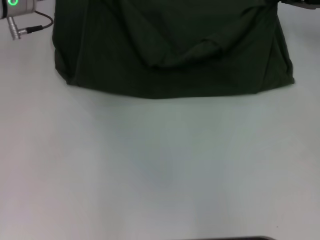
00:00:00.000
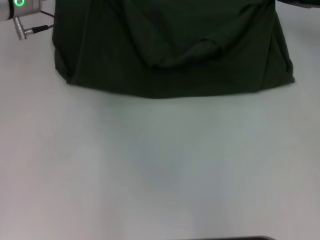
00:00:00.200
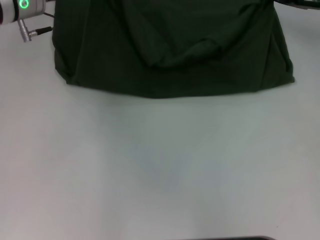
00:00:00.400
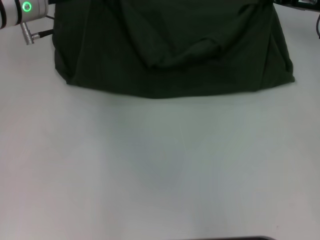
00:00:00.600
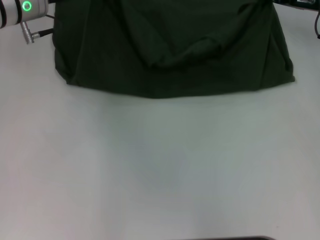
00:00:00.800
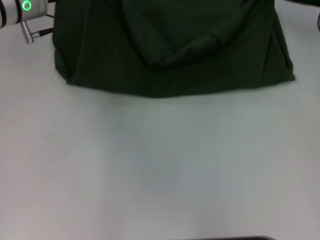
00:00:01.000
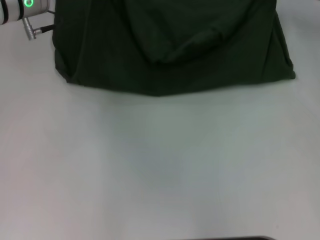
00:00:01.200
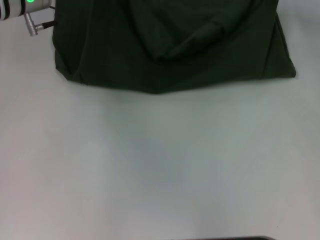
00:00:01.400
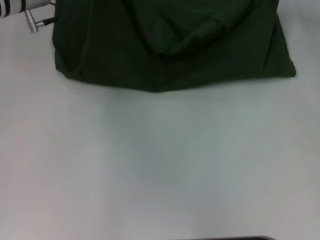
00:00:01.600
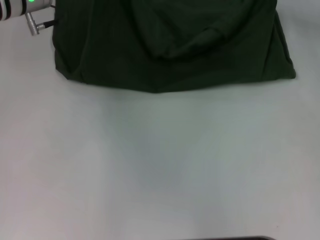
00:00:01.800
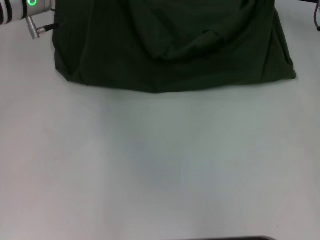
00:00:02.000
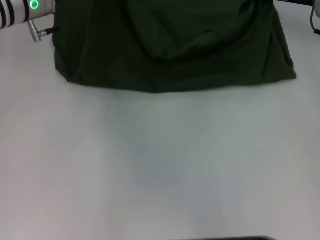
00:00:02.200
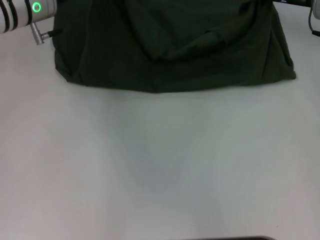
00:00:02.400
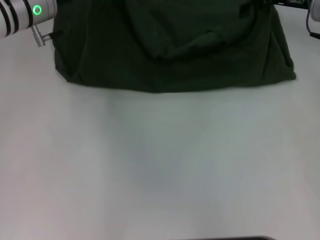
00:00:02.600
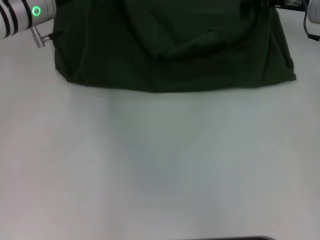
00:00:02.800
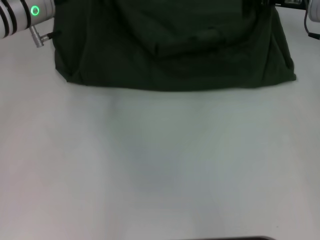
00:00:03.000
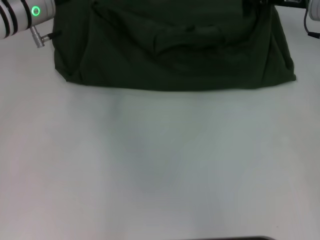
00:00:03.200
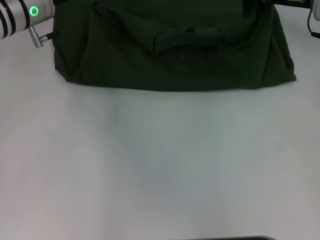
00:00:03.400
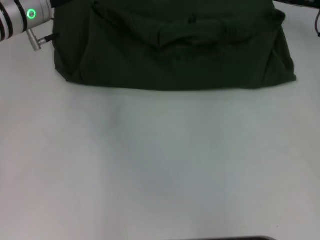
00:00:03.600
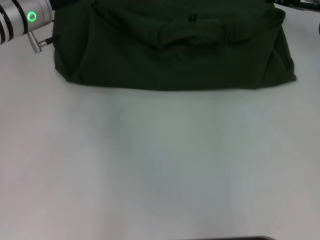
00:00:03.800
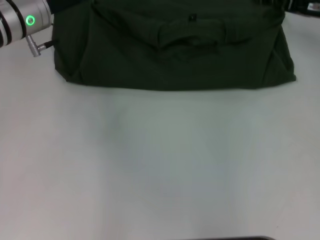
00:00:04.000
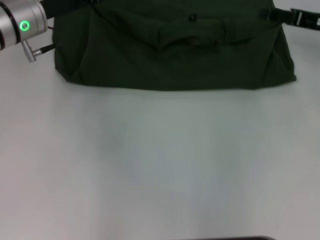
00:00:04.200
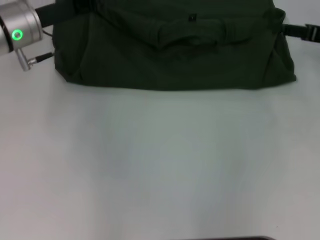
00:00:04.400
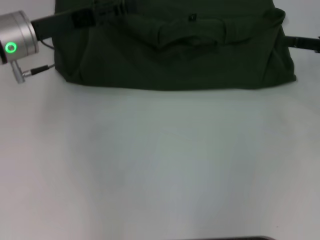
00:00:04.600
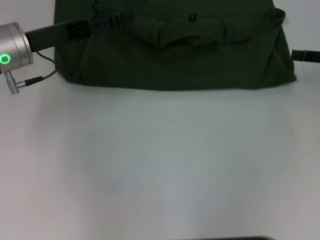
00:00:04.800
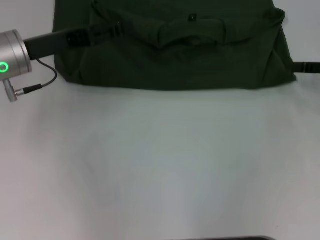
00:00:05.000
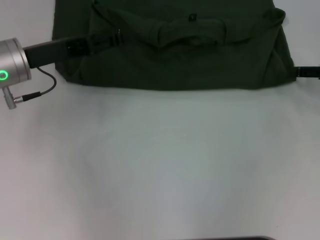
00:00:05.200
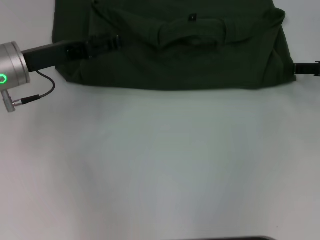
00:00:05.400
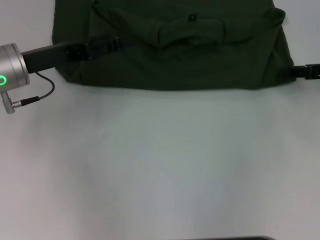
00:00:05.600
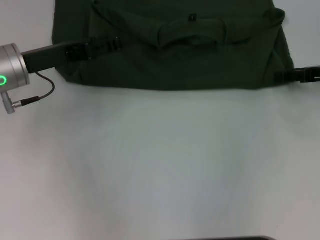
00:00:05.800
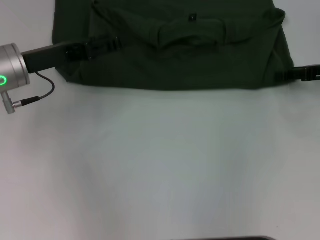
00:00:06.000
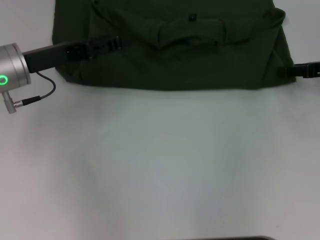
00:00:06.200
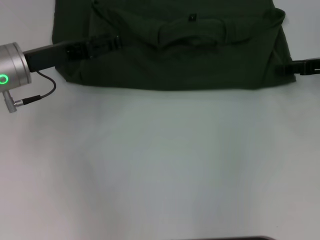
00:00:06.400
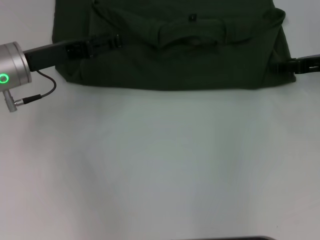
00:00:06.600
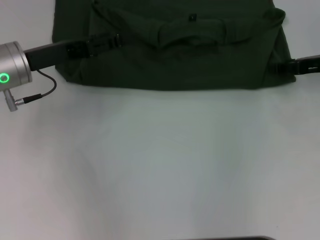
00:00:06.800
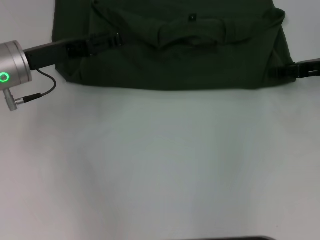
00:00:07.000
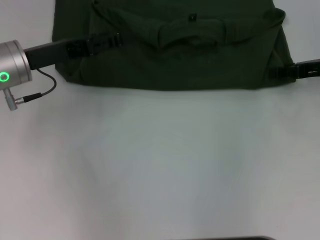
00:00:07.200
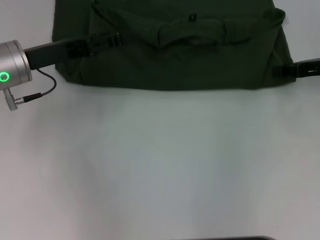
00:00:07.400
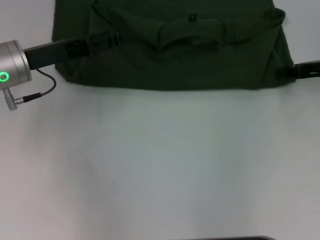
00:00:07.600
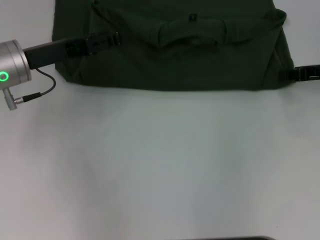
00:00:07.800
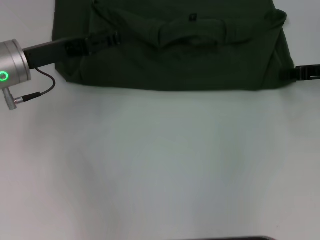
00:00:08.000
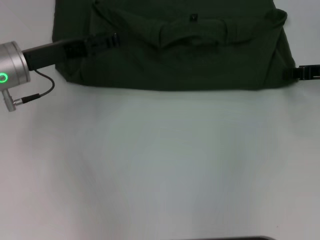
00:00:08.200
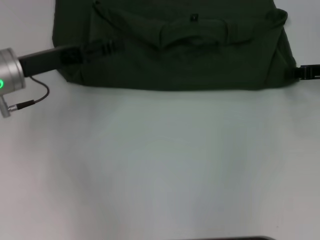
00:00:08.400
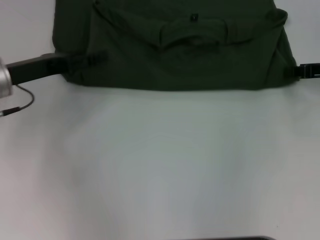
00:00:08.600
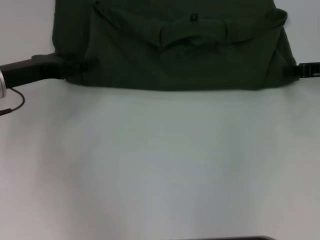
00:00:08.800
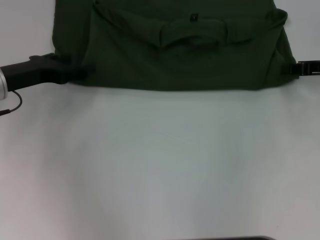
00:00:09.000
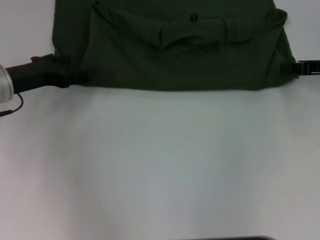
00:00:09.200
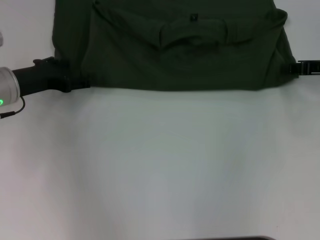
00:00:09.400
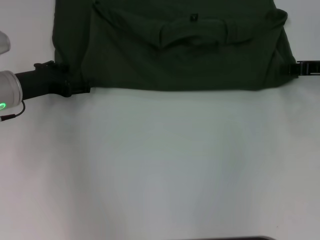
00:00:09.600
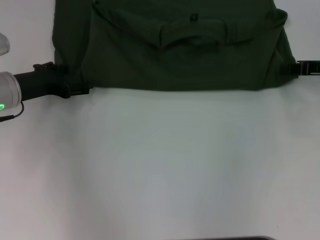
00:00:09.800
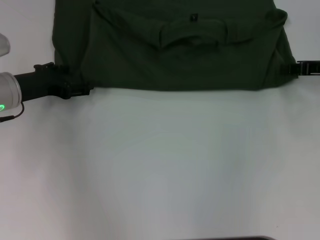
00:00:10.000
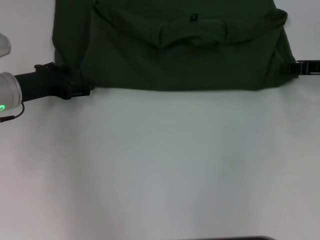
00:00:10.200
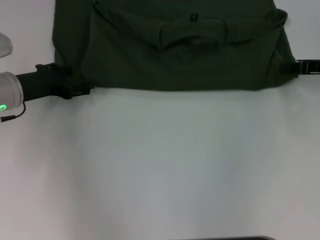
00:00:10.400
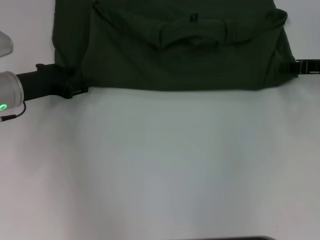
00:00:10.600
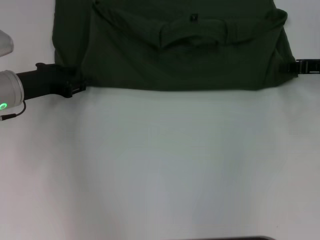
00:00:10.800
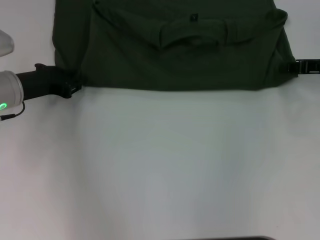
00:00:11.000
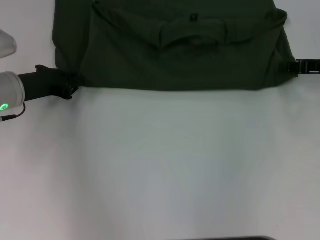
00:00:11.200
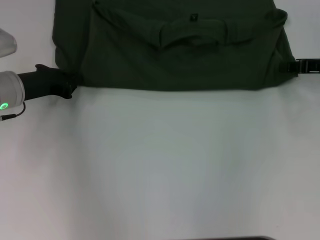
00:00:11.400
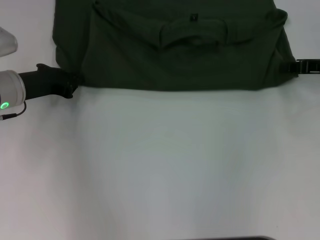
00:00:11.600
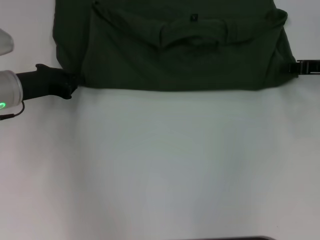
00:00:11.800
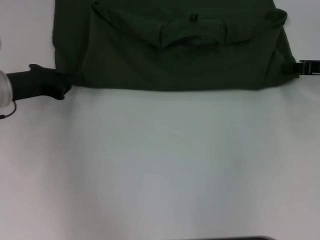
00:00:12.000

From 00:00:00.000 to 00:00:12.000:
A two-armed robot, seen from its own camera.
Step, from 00:00:00.000 to 00:00:04.600: Fold the clothes with your left hand.
Step, from 00:00:00.000 to 00:00:04.600: Fold the clothes with your right hand.
From 00:00:00.000 to 00:00:01.600: The grippers move only a little.
From 00:00:01.600 to 00:00:03.000: The left gripper opens.
From 00:00:03.000 to 00:00:04.400: The right gripper moves backward and to the right, about 10 cm, and opens its fingers. Meanwhile the left gripper opens up.
From 00:00:04.400 to 00:00:06.000: The left gripper changes place by roughly 5 cm.
From 00:00:06.000 to 00:00:07.600: There are only small adjustments of the grippers.
From 00:00:09.000 to 00:00:10.400: There are only small adjustments of the grippers.
From 00:00:10.400 to 00:00:12.000: The left gripper closes.

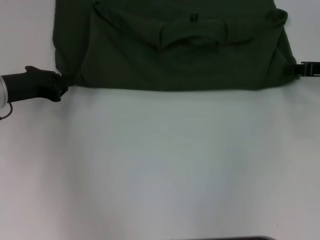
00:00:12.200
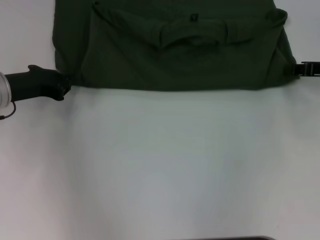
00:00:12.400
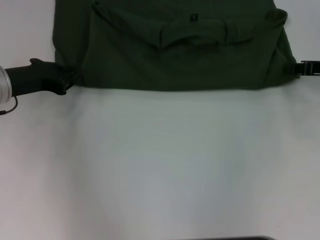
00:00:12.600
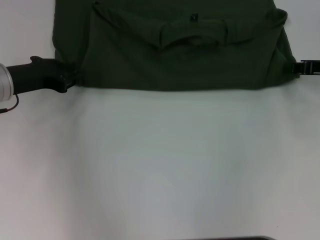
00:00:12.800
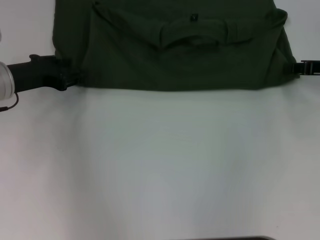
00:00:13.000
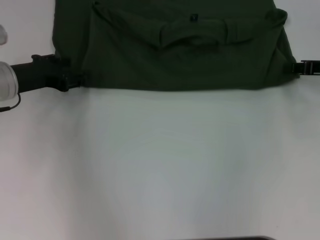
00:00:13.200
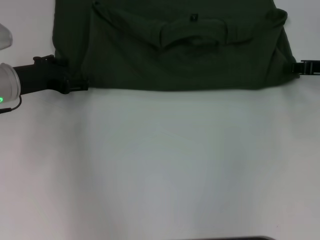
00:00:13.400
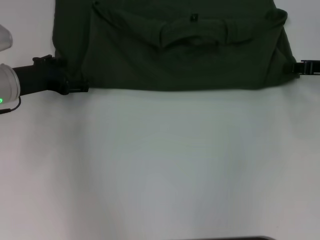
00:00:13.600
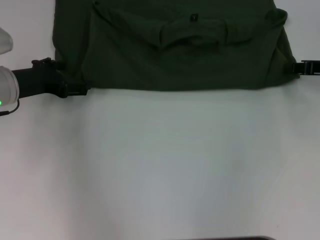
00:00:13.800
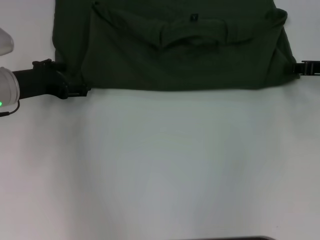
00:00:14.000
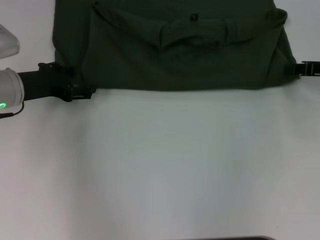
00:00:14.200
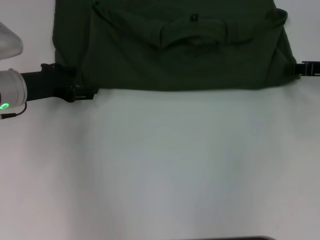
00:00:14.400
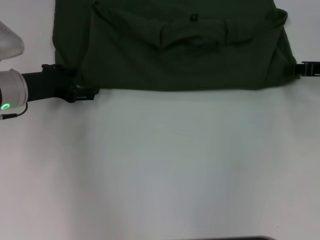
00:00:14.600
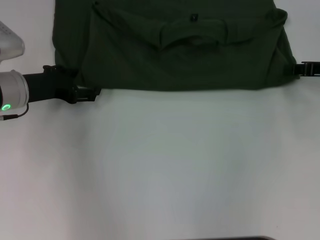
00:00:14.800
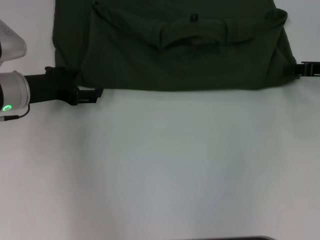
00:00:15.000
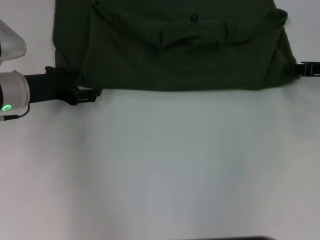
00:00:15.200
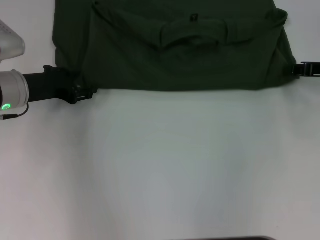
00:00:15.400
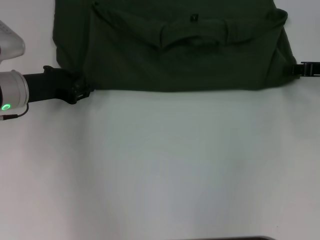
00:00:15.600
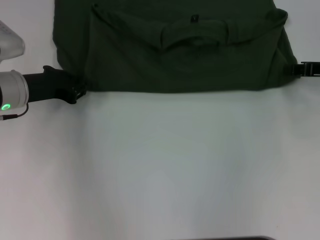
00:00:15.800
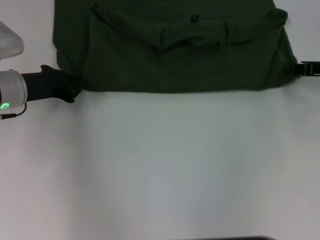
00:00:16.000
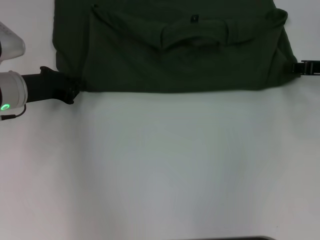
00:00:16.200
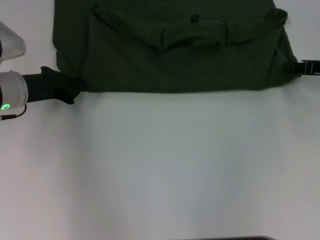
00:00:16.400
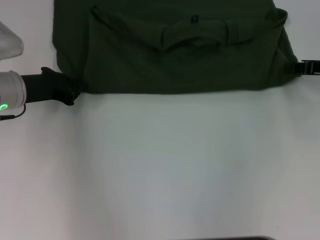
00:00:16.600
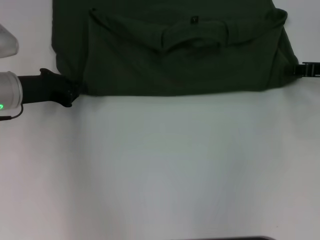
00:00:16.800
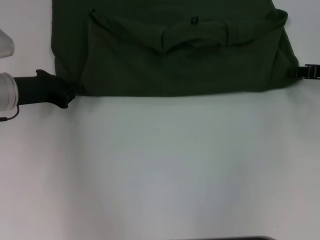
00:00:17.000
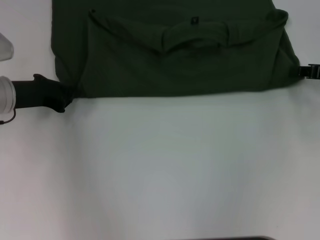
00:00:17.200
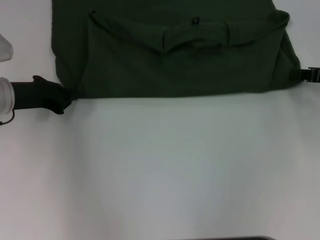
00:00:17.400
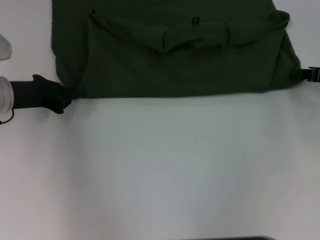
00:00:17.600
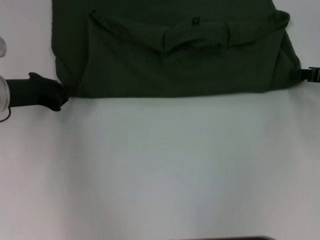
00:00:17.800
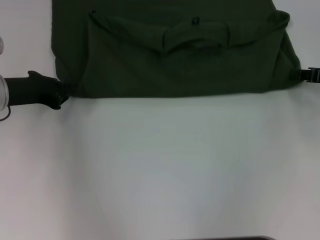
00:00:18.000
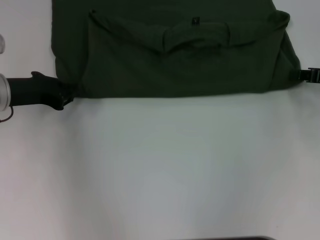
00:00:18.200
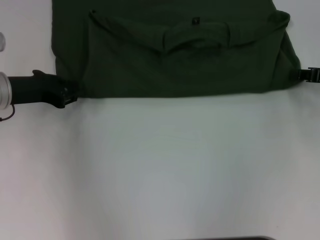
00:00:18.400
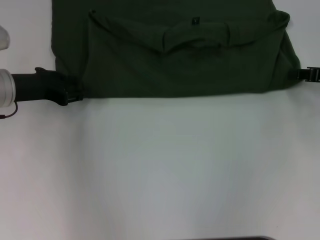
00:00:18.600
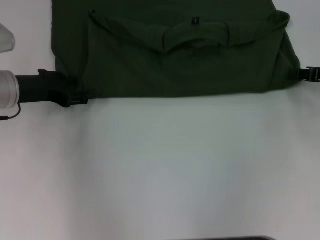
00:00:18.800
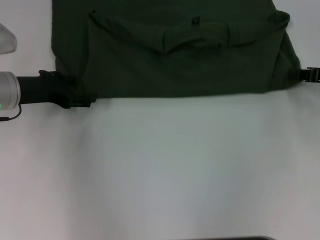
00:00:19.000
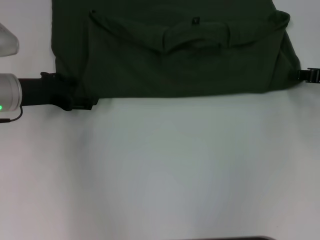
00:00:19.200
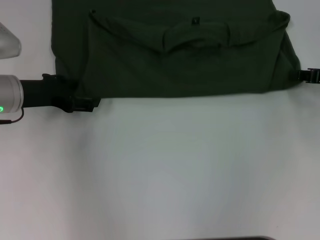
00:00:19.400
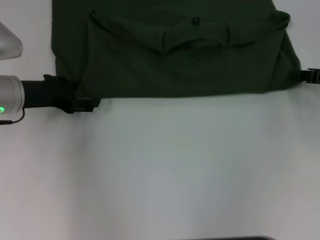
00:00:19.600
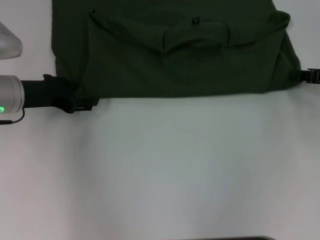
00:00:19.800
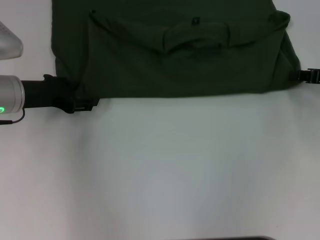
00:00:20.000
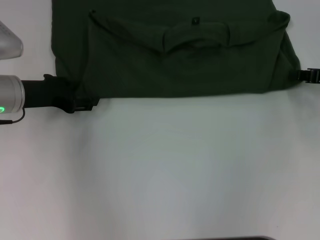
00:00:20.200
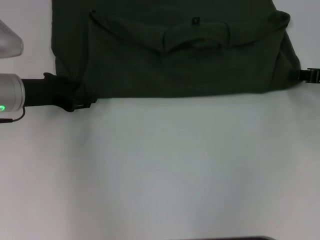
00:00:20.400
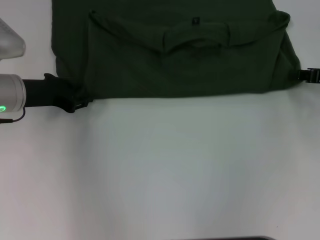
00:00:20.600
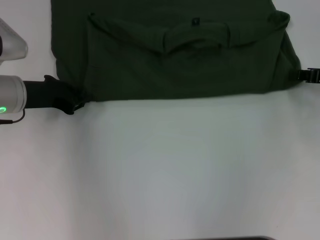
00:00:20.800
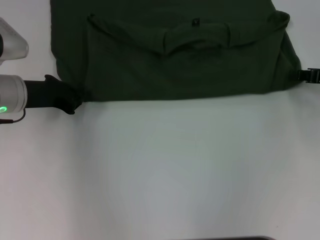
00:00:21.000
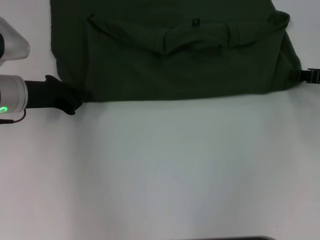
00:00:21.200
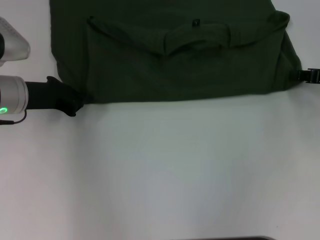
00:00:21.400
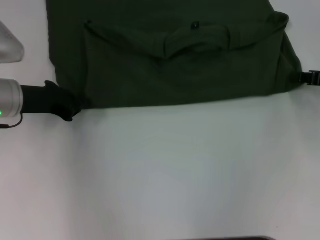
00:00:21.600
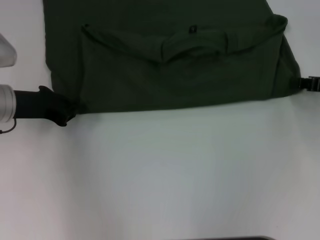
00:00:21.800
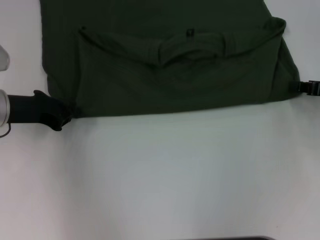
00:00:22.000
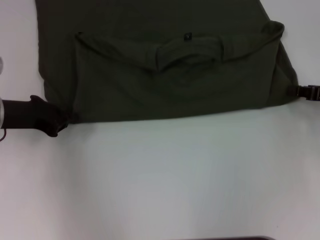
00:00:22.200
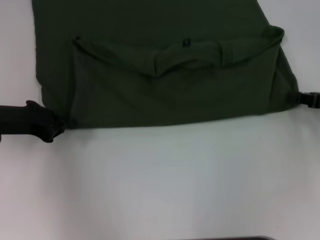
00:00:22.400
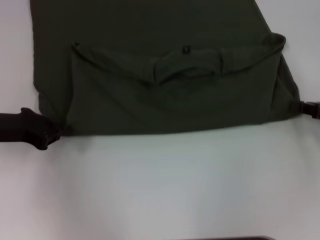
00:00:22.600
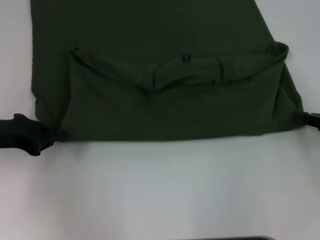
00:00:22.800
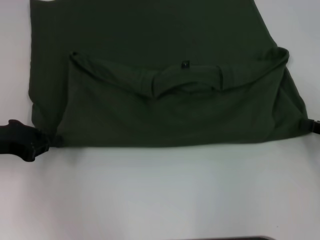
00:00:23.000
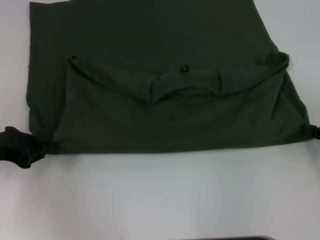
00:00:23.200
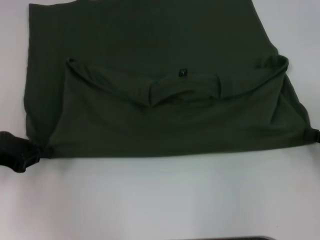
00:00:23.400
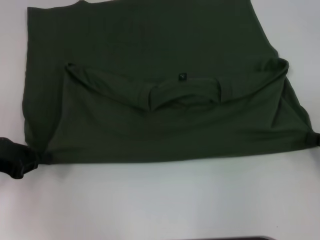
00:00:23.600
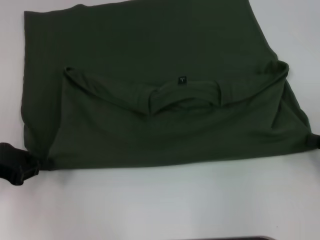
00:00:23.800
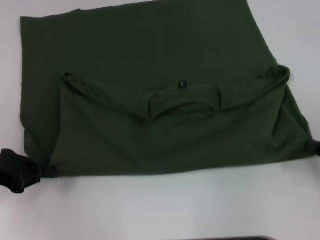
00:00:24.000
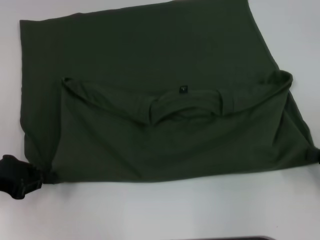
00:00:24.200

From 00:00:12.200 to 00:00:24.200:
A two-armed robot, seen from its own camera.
From 00:00:12.200 to 00:00:13.800: The left gripper opens.
From 00:00:13.800 to 00:00:15.200: The two grippers keep their place.
From 00:00:15.200 to 00:00:16.600: The left gripper closes.
From 00:00:16.600 to 00:00:18.200: There are only small adjustments of the grippers.
From 00:00:18.200 to 00:00:19.800: The left gripper opens up.
From 00:00:19.800 to 00:00:21.200: The left gripper closes.
From 00:00:21.200 to 00:00:22.600: Both grippers travel together backward, some 5 cm.
From 00:00:22.600 to 00:00:24.200: The left gripper goes about 5 cm backward, while the right gripper moves backward, approximately 10 cm.
